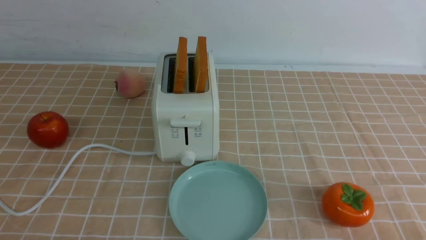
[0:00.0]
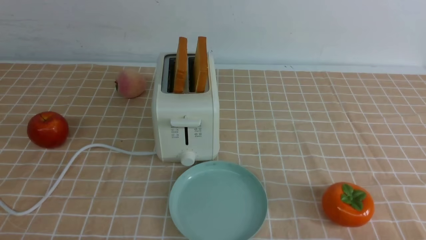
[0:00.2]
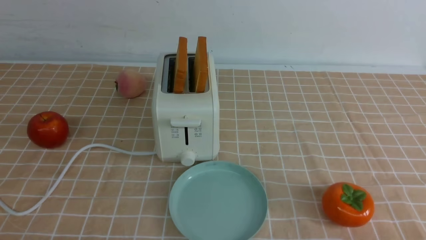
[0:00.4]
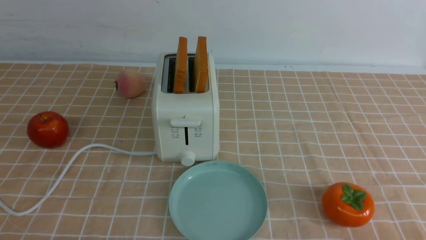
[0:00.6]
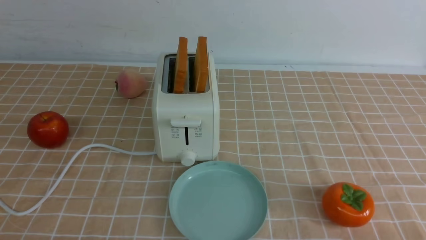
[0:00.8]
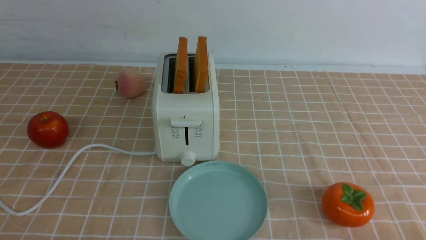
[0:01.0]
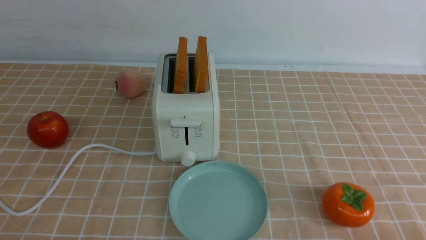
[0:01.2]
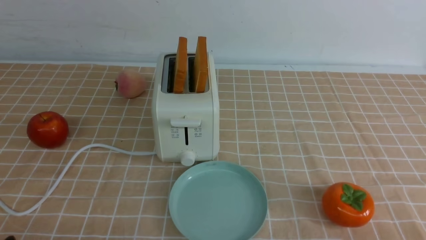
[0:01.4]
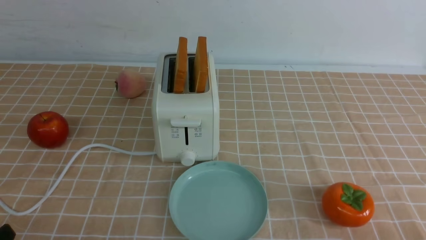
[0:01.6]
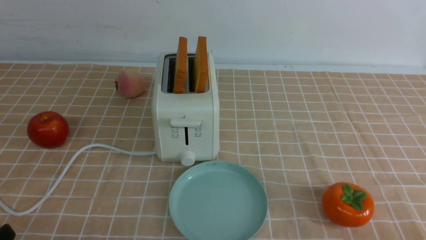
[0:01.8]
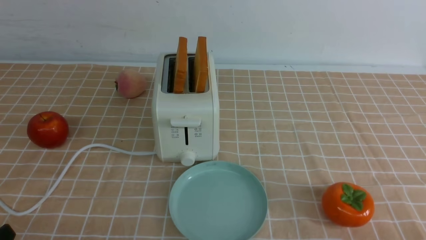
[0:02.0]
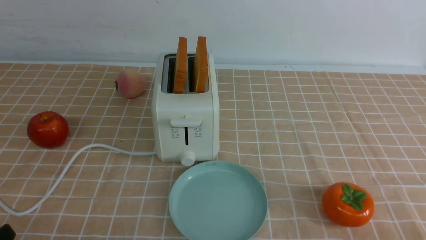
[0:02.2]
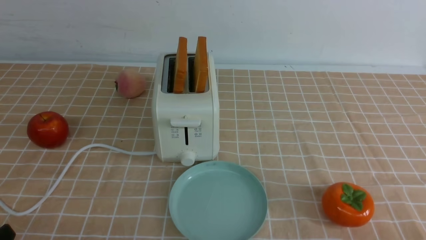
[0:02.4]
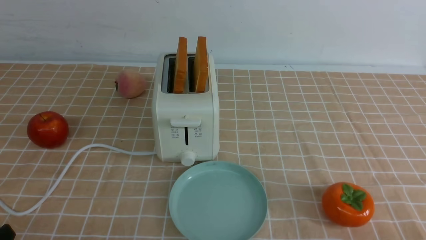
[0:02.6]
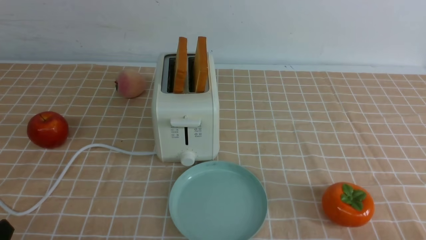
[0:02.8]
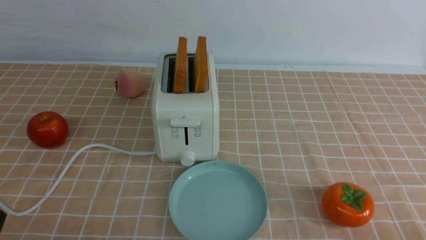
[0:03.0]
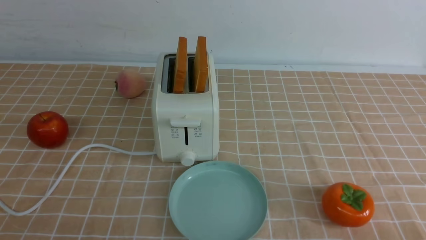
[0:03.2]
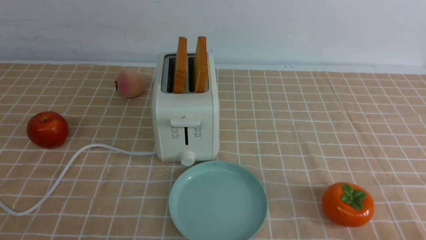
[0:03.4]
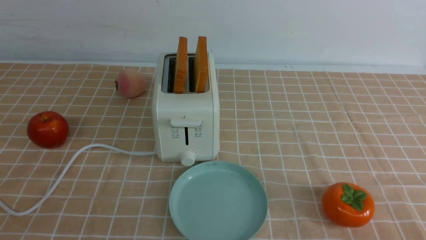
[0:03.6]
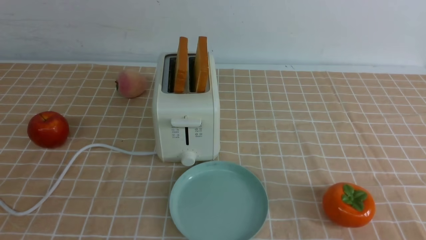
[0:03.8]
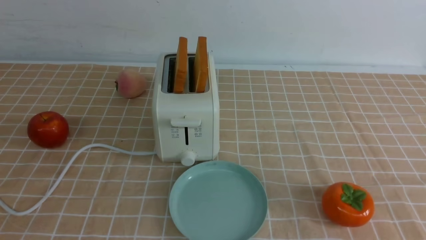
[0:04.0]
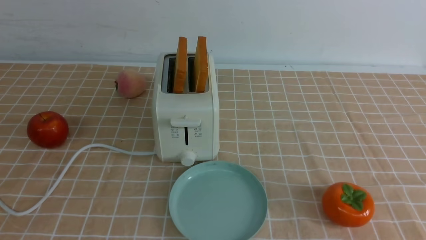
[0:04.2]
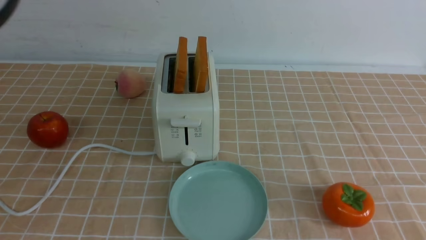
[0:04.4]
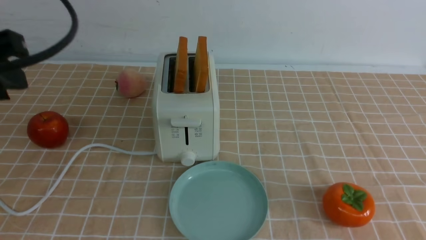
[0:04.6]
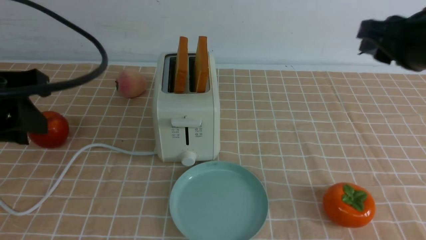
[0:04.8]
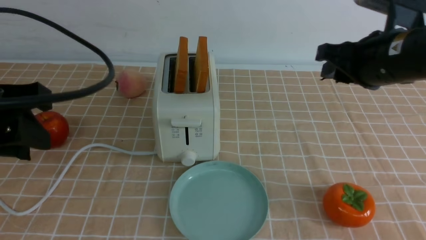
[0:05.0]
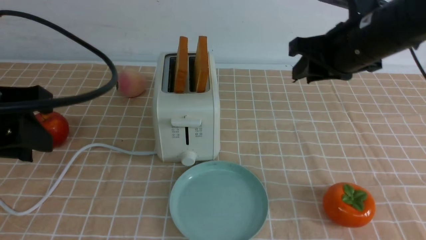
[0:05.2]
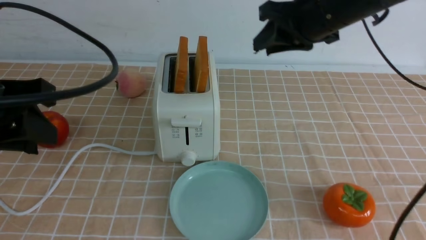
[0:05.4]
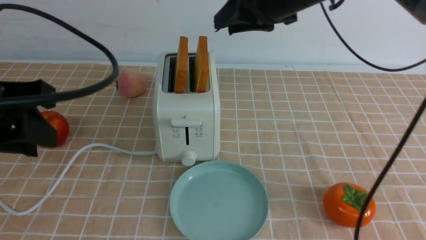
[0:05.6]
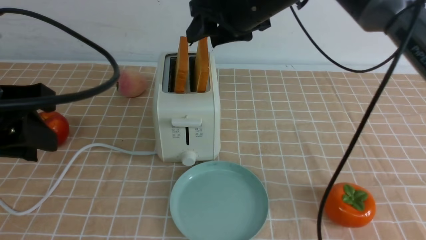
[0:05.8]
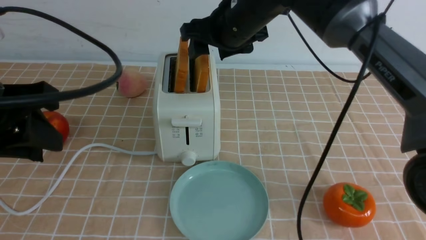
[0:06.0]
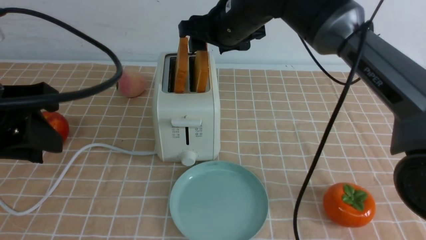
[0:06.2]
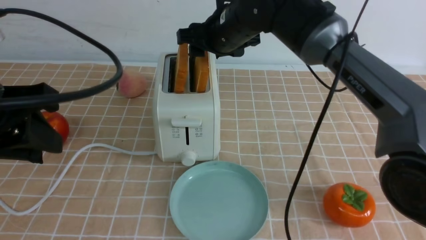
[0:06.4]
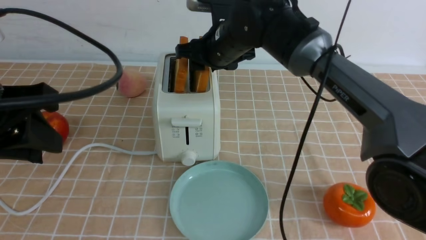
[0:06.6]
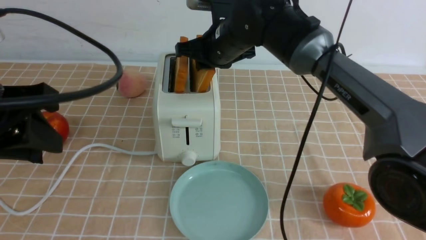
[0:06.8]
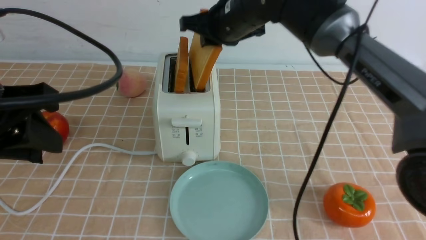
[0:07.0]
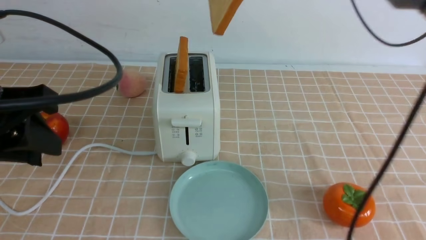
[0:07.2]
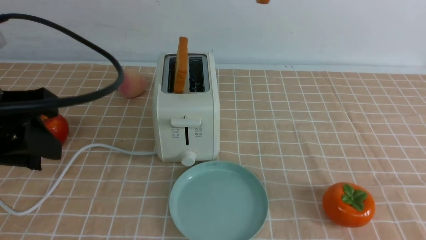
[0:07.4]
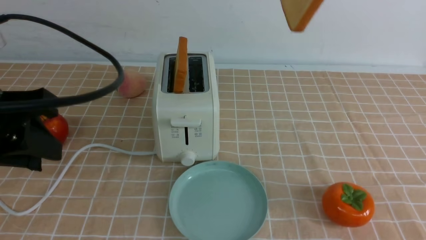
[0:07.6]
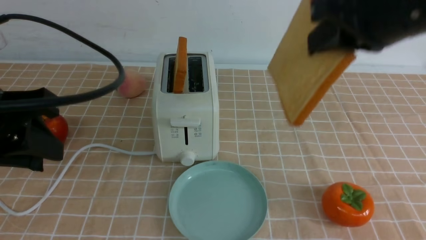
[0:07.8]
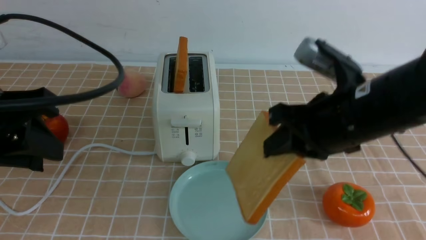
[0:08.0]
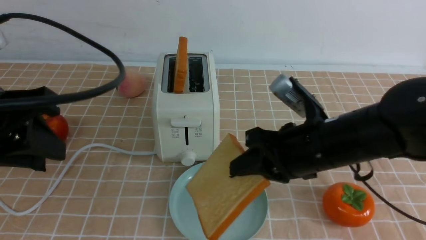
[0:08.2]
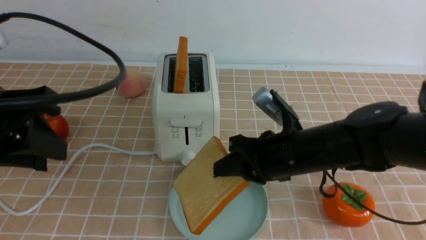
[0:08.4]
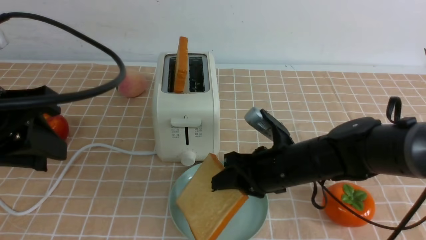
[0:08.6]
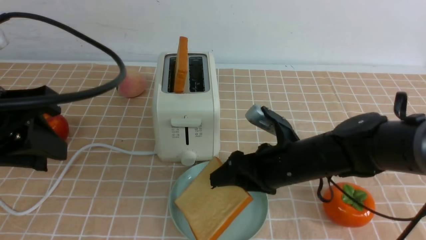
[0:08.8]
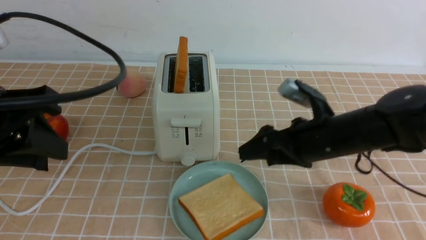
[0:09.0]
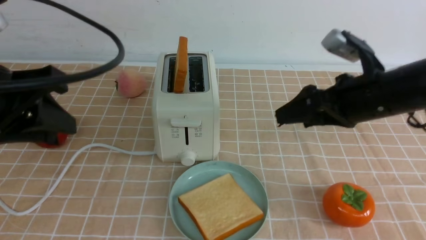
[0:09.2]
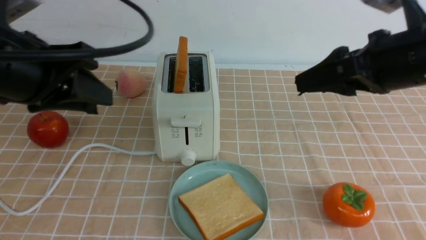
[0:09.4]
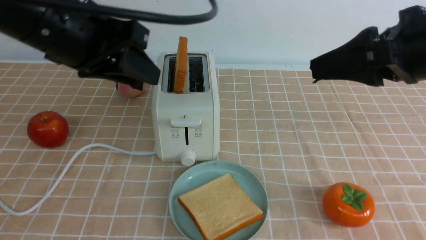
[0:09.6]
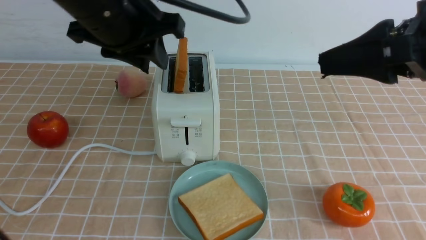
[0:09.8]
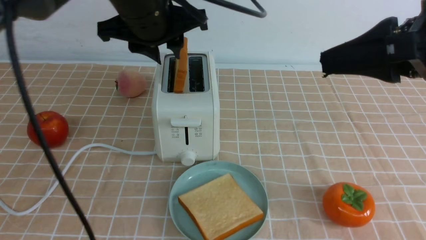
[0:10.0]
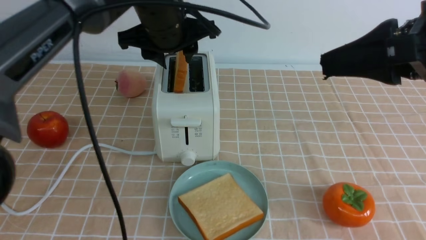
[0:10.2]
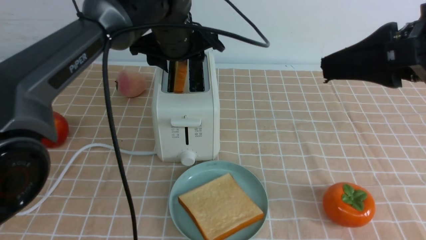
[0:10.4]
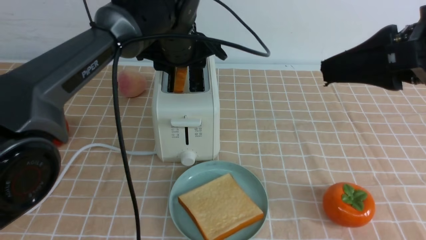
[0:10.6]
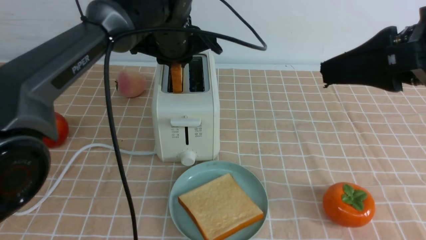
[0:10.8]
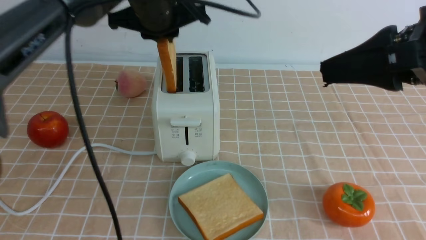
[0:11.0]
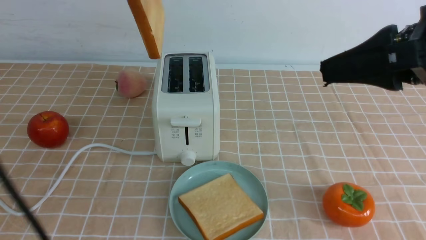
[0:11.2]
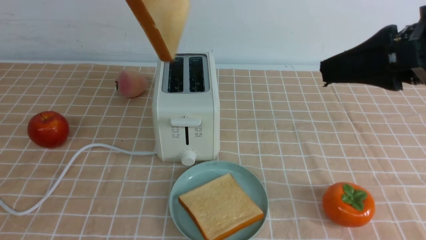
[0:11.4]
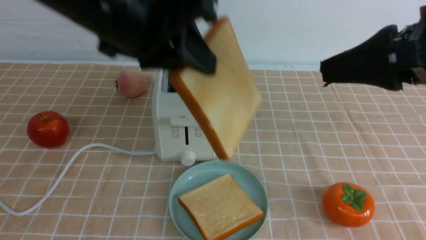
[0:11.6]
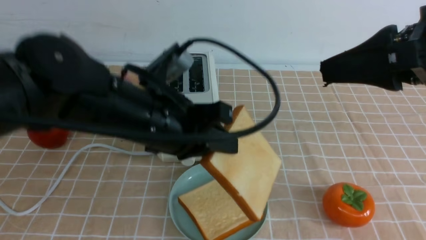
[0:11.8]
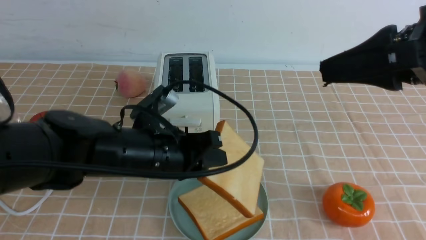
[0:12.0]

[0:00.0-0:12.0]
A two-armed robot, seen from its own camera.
Task of the whole recording: take toasted bread from bread machine on light coffee tablecloth place on plate.
Step, 0:00.0 to 0:06.8: use the right arm to take out a slice of bread.
Step, 0:07.0 to 0:09.0: use the right arm to put a slice of bread into the plate.
Step, 0:09.2 to 0:11.0: use the left arm to take out a slice of bread.
0:04.4 to 0:06.0: The right gripper heads to the left and forward, covering approximately 35 cm, and opens up, while the left gripper is displaced downward by some 5 cm.
0:06.0 to 0:07.6: The right gripper travels backward, upward and to the right by roughly 20 cm, and closes its fingers.
0:07.6 to 0:09.0: The right gripper shifts some 25 cm downward, and opens up.
0:09.0 to 0:10.4: The right gripper heads upward and backward, covering approximately 20 cm; the left gripper moves forward and to the right, roughly 30 cm, and opens its fingers.
0:10.4 to 0:12.0: The left gripper shifts about 20 cm backward and downward, and closes up.

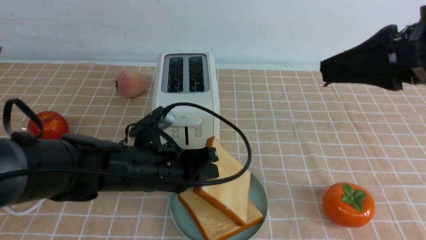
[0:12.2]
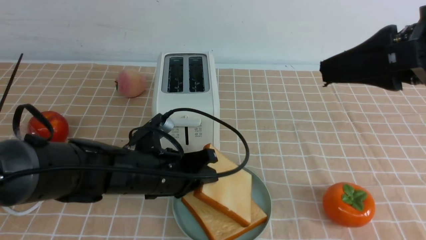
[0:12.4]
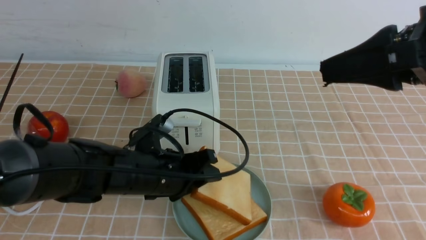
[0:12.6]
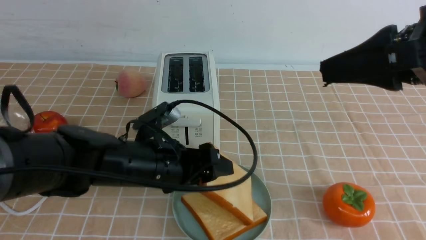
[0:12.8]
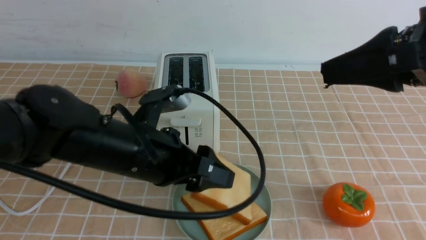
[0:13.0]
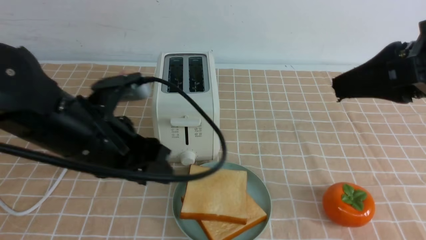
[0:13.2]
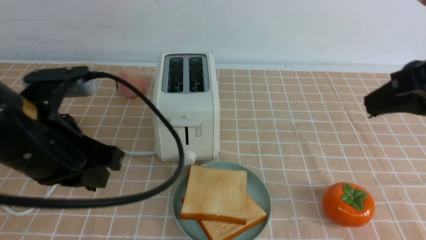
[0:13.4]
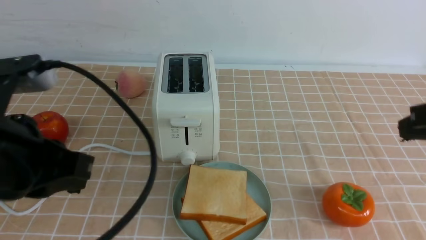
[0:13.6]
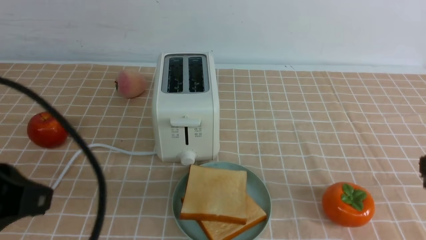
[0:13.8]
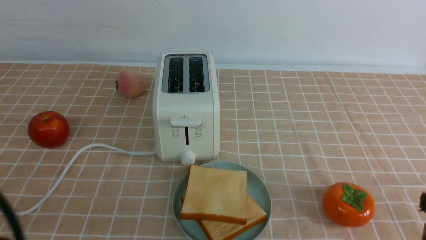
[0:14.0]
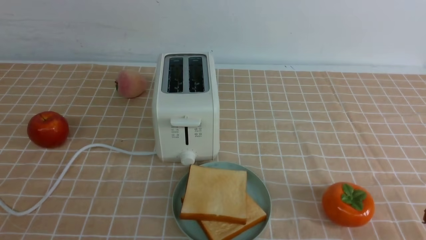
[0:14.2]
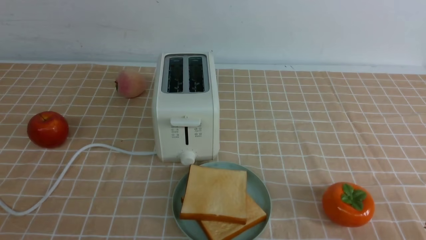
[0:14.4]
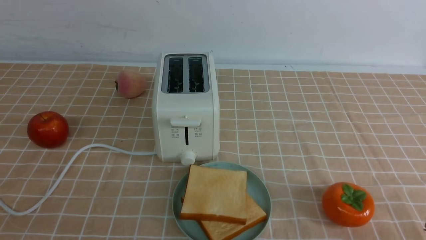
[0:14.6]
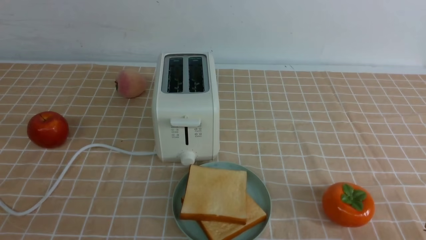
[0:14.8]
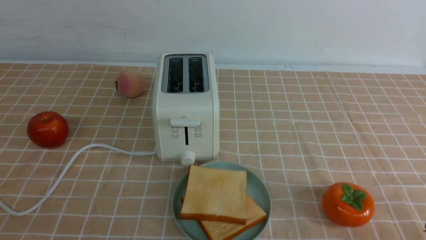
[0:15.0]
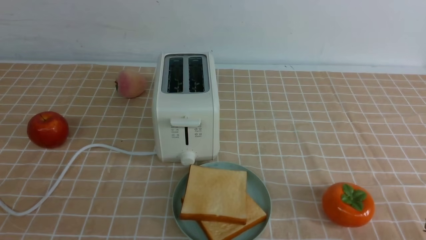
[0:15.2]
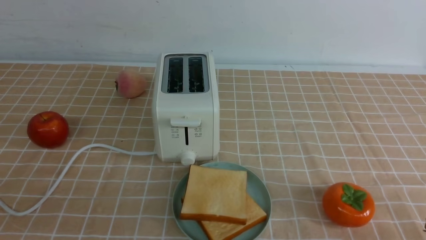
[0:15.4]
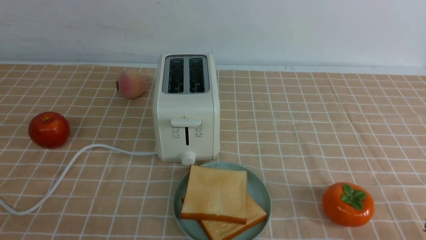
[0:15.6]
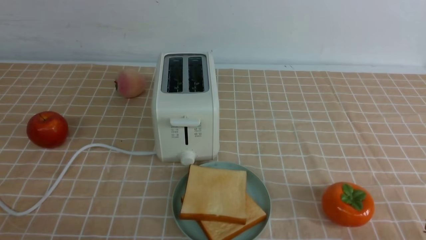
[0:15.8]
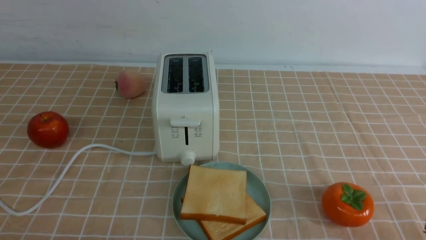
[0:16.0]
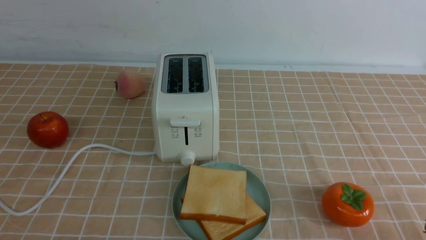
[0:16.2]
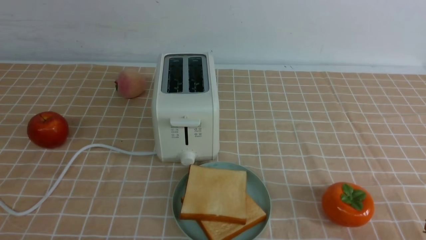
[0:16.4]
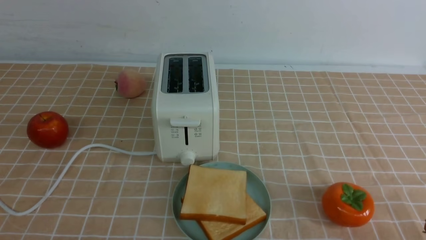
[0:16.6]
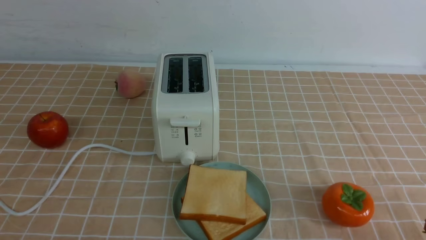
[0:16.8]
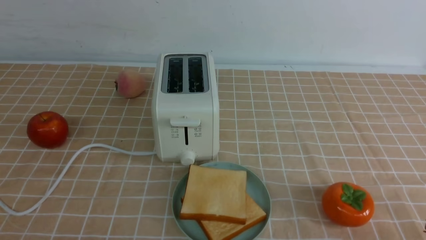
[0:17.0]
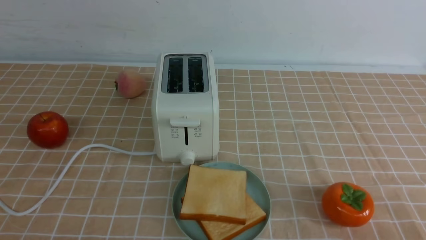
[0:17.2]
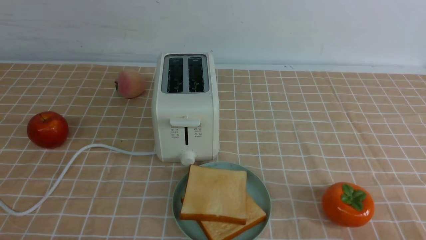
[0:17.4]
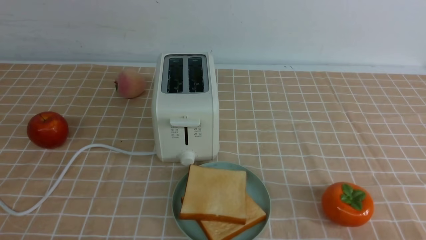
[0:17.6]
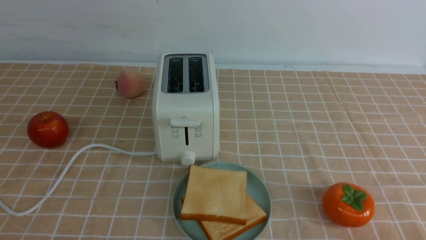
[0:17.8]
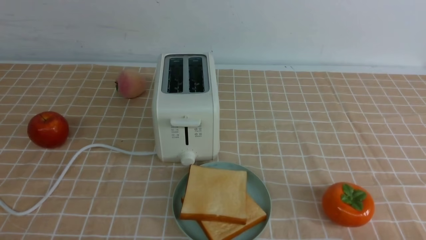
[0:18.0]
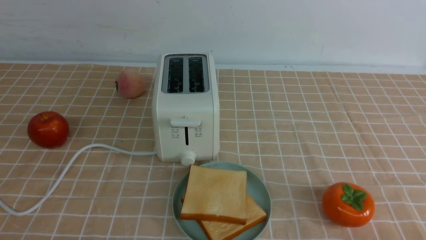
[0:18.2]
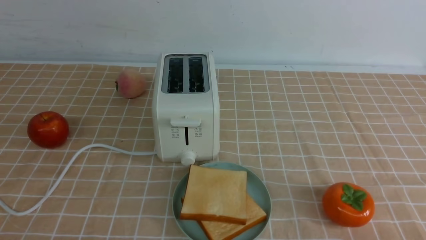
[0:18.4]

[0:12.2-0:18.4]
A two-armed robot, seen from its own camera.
Task of the whole recording: take toasted bread from bread machine on light coffee tablecloth place on plate.
0:12.2 to 0:13.8: The right gripper heads downward, backward and to the right, covering about 15 cm, and closes its fingers, while the left gripper travels backward, upward and to the left by roughly 25 cm, and opens, then closes again.
0:13.8 to 0:15.4: The right gripper shifts some 10 cm downward and backward; the left gripper is displaced backward by approximately 5 cm.
